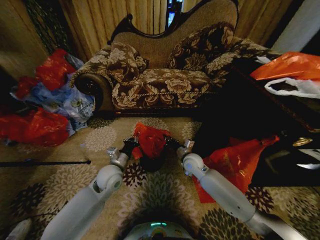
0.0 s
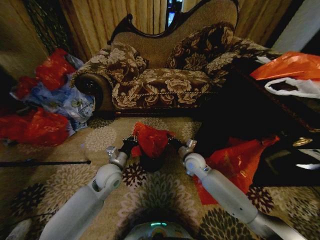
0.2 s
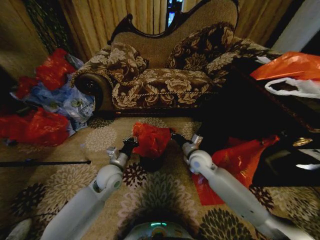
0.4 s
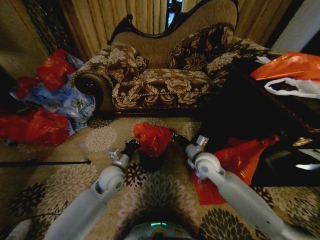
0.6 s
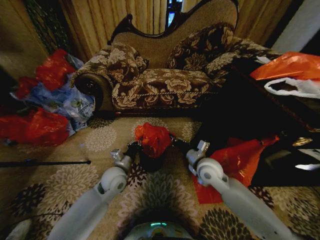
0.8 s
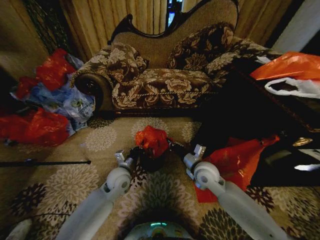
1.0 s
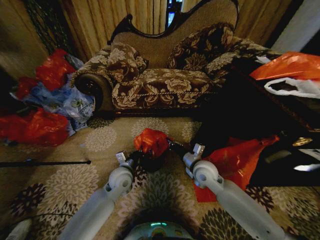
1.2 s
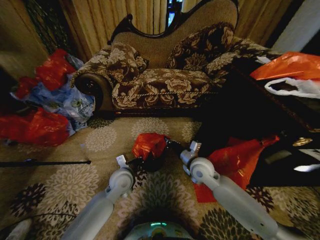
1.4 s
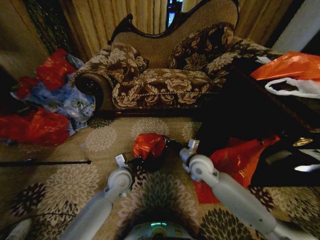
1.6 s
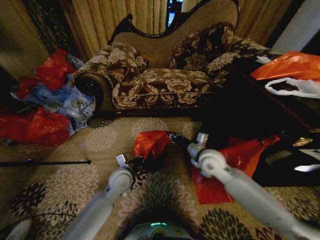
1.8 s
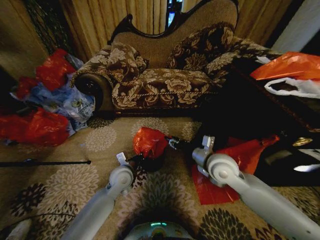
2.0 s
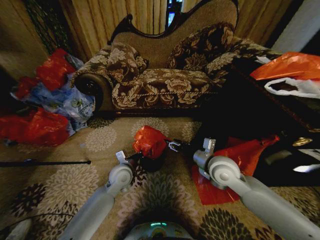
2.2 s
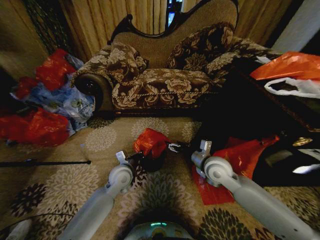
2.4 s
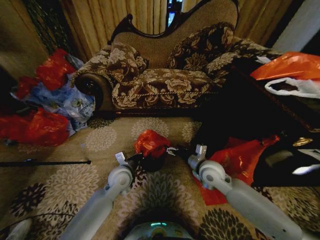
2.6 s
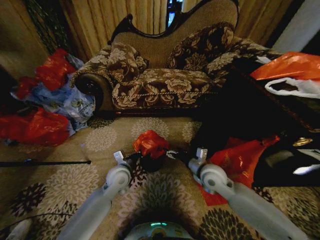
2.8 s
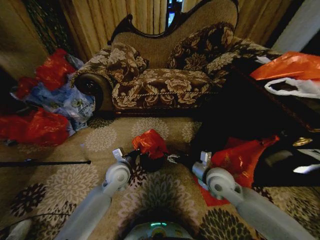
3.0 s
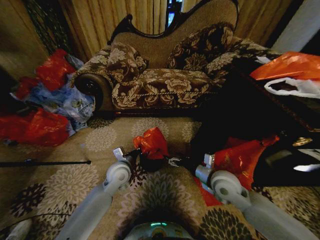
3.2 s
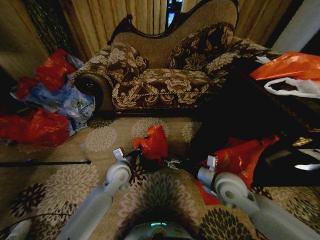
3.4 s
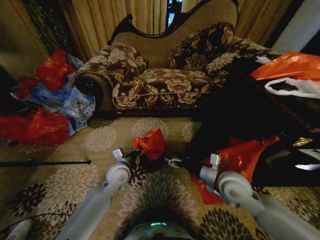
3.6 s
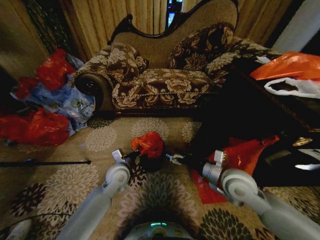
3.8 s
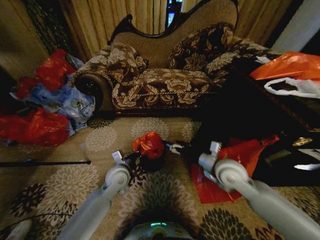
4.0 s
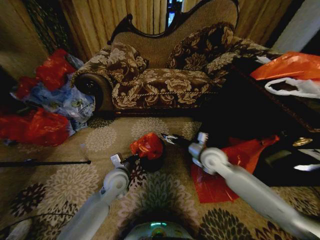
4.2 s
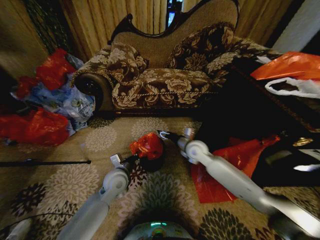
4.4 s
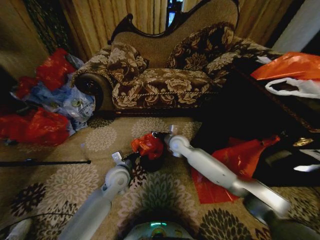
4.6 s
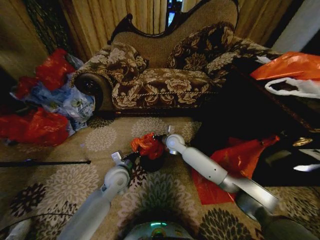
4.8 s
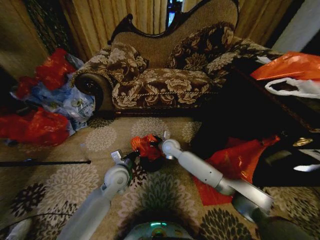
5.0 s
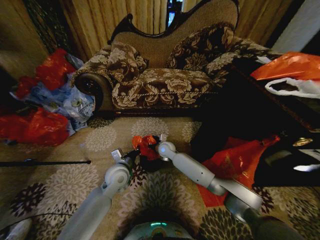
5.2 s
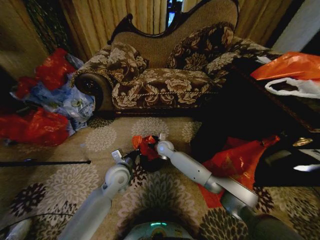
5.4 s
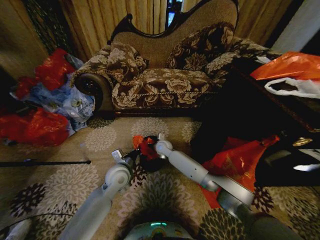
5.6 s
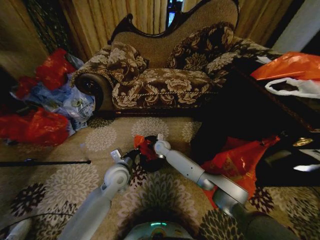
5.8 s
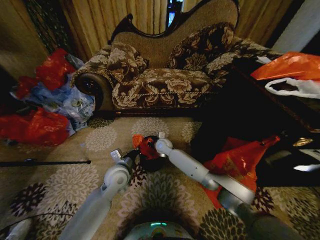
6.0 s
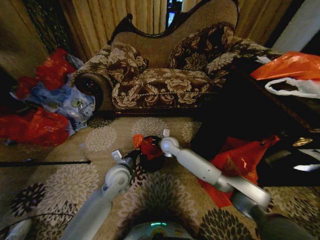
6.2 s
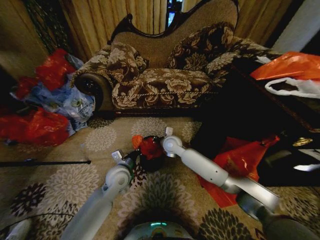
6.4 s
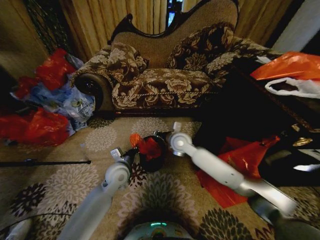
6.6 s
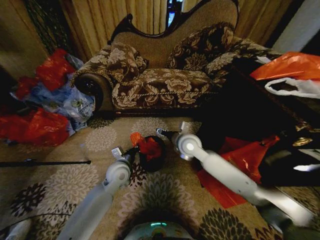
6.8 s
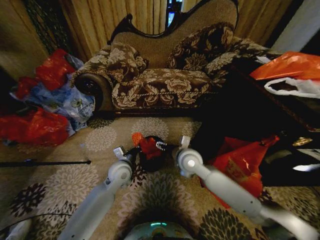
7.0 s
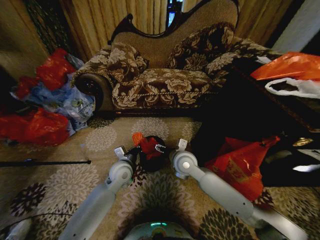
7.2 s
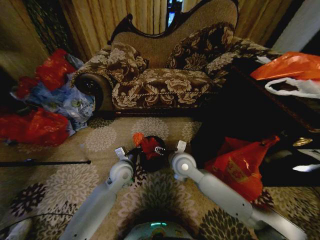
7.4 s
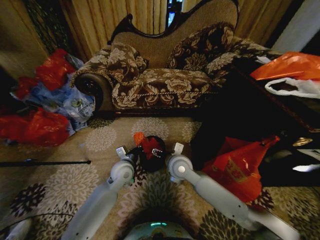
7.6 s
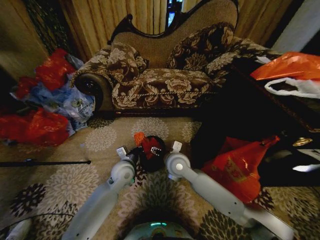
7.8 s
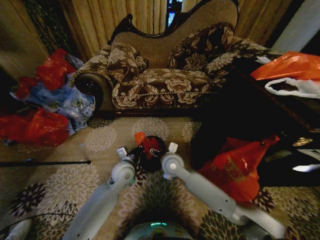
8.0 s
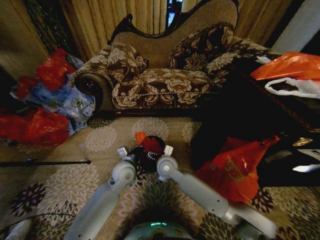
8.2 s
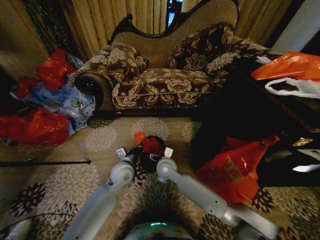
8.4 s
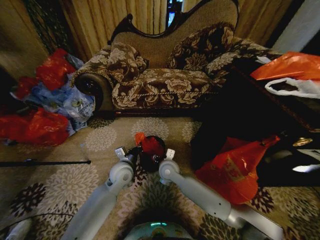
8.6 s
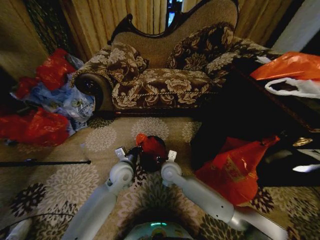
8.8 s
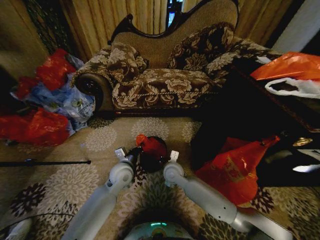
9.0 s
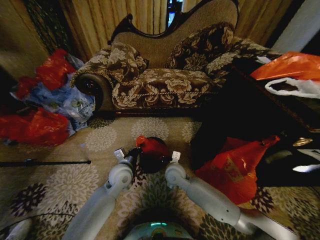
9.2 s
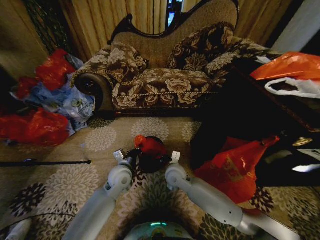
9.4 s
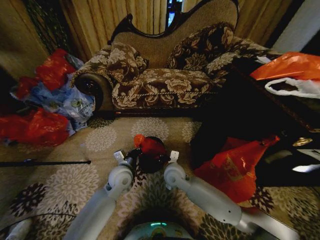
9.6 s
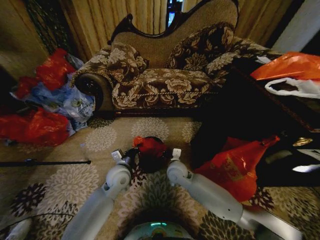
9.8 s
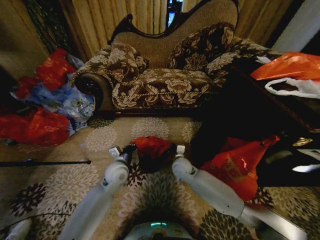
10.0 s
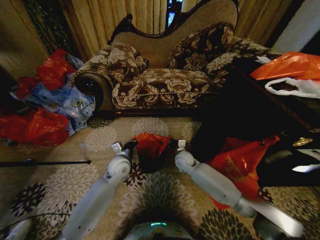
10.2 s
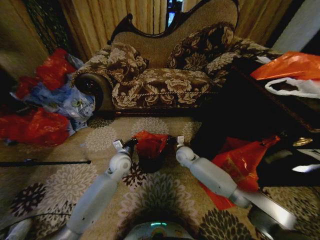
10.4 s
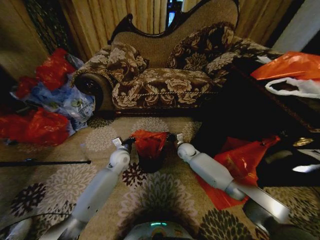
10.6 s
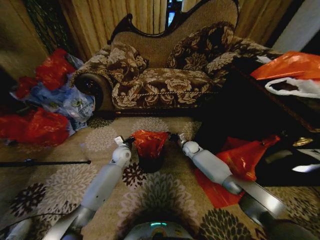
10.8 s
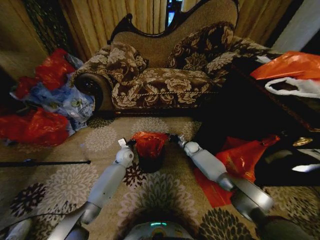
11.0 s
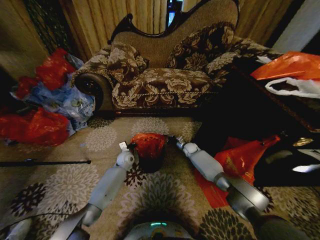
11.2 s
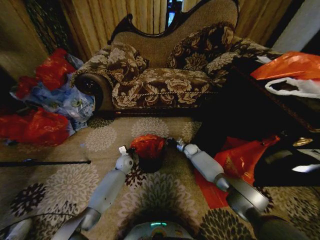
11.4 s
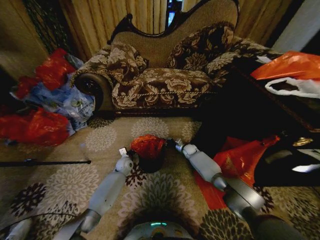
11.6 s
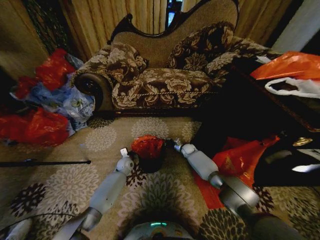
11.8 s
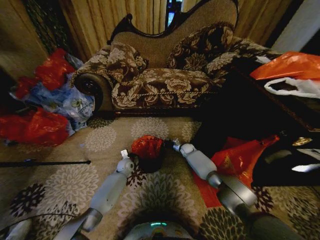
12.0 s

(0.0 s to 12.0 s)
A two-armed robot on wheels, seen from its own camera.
Task of the whole recording: Place a garbage bag over the trash bin.
0.0 s - 1.6 s: The right gripper goes about 10 cm upward and backward.
1.6 s - 3.0 s: The right gripper shifts some 10 cm to the right and backward, travels upward and back again, roughly 5 cm each way, and opens up.
3.0 s - 4.4 s: The right gripper goes roughly 15 cm forward and to the left.
4.4 s - 6.0 s: The right gripper goes about 15 cm to the left, downward and forward, and closes its fingers.
6.0 s - 7.6 s: The right gripper shifts some 20 cm backward and upward, and opens its fingers.
7.6 s - 9.0 s: The right gripper heads downward, covering roughly 10 cm, and closes up.
9.0 s - 10.4 s: The left gripper goes about 5 cm forward, while the right gripper shifts approximately 15 cm forward and to the right.
10.4 s - 12.0 s: The right gripper travels forward, downward and to the right by about 15 cm. The left gripper travels downward and forward by roughly 15 cm.

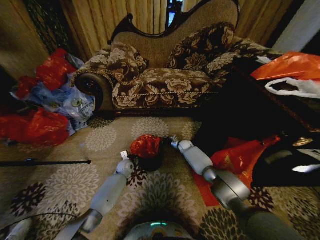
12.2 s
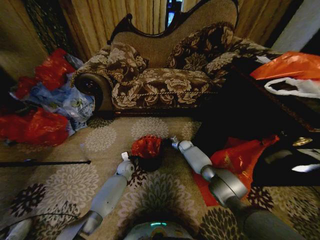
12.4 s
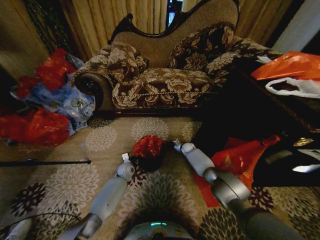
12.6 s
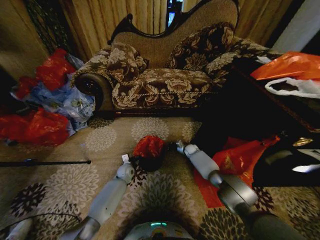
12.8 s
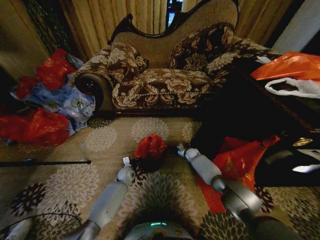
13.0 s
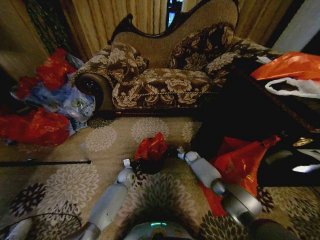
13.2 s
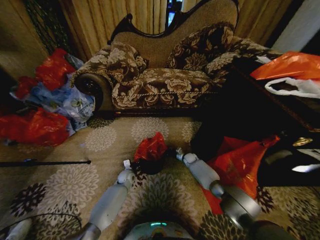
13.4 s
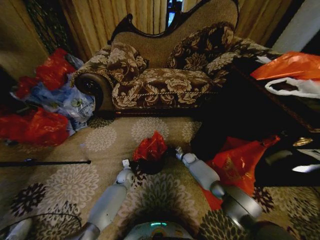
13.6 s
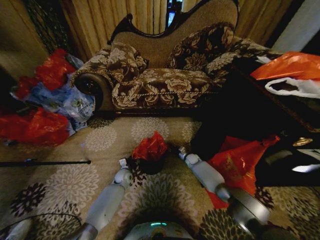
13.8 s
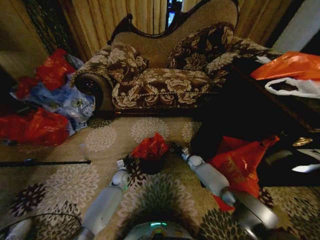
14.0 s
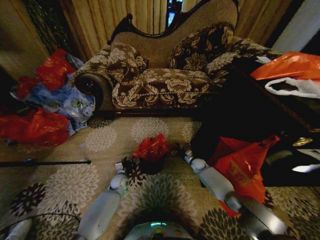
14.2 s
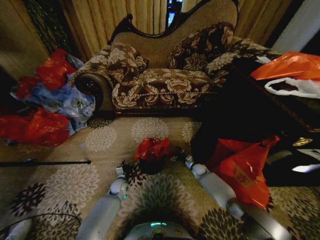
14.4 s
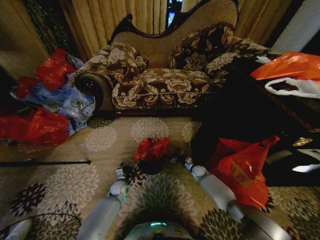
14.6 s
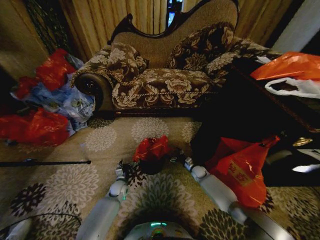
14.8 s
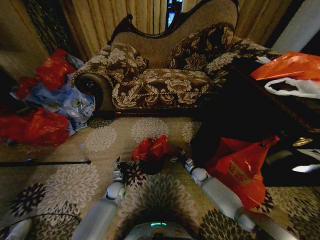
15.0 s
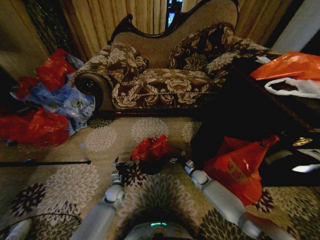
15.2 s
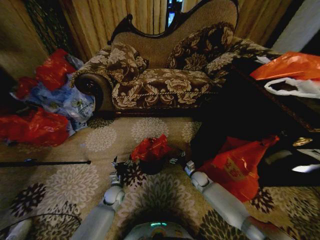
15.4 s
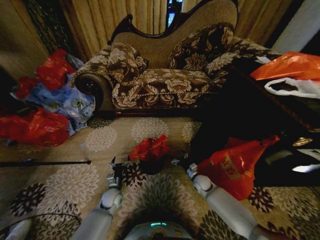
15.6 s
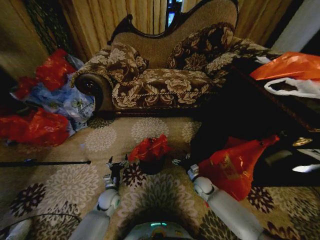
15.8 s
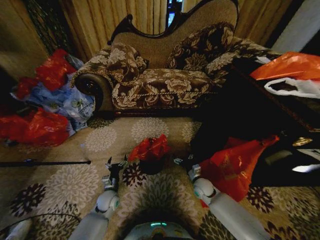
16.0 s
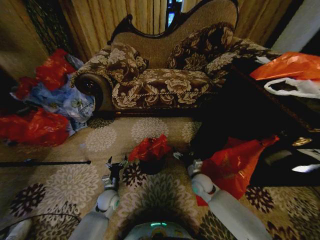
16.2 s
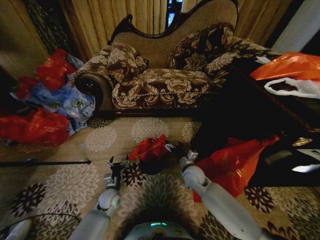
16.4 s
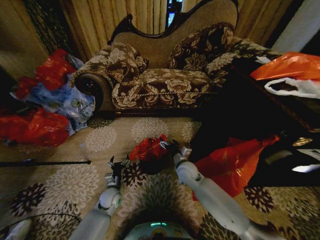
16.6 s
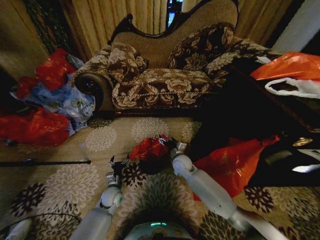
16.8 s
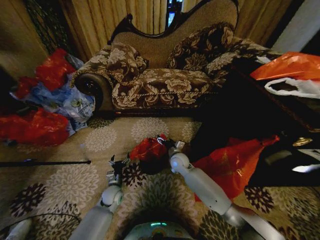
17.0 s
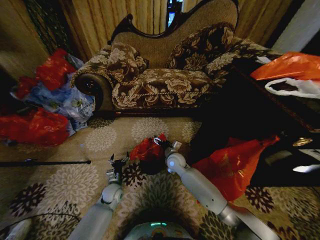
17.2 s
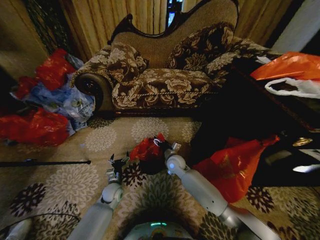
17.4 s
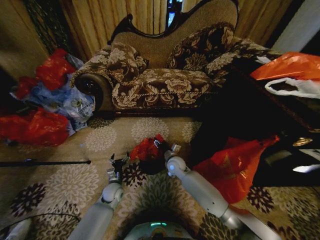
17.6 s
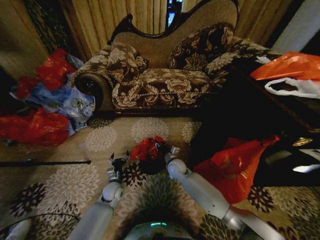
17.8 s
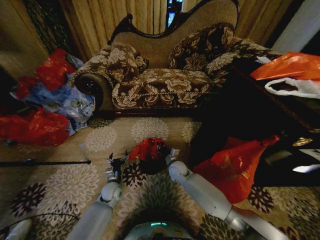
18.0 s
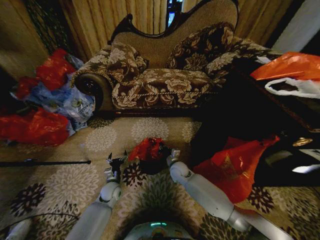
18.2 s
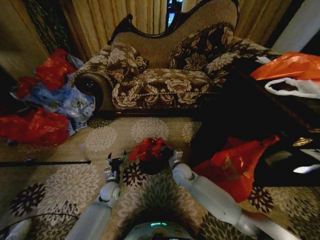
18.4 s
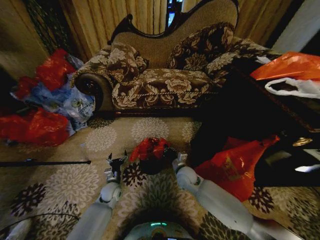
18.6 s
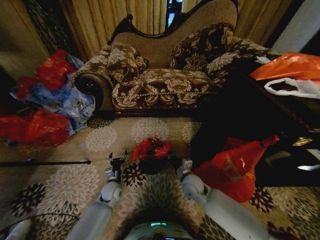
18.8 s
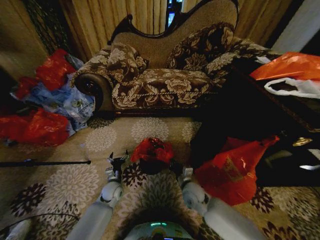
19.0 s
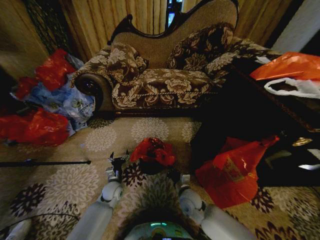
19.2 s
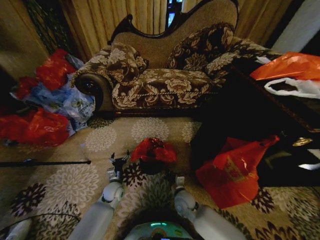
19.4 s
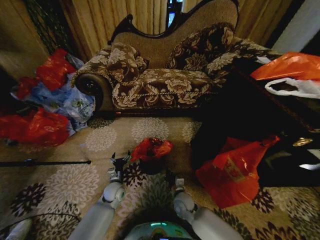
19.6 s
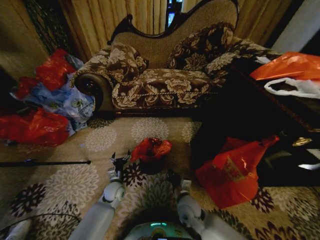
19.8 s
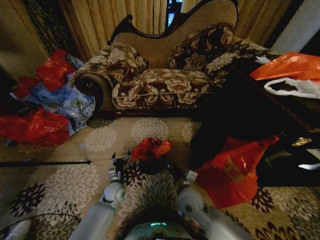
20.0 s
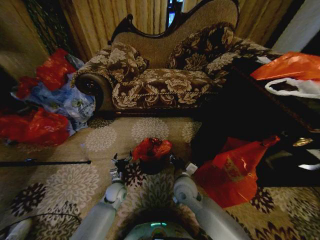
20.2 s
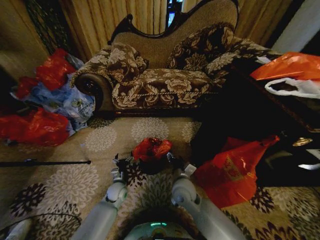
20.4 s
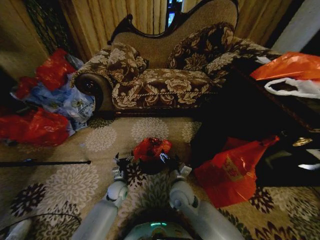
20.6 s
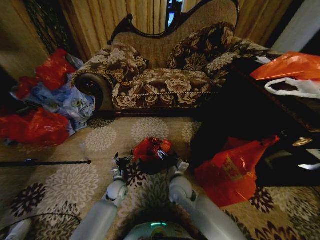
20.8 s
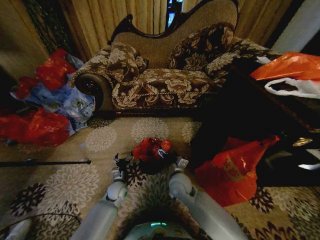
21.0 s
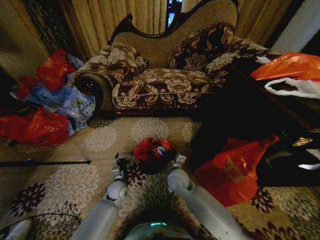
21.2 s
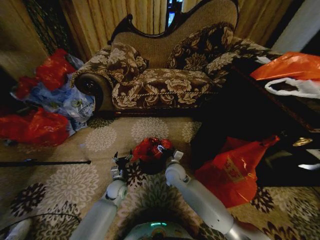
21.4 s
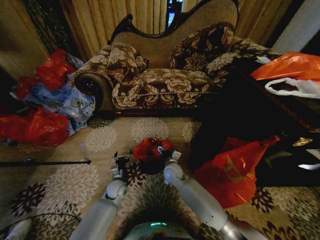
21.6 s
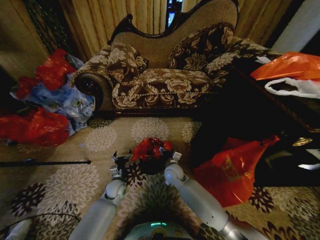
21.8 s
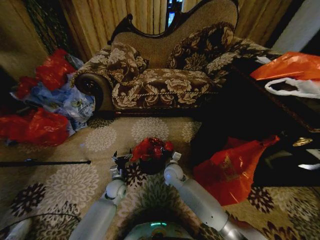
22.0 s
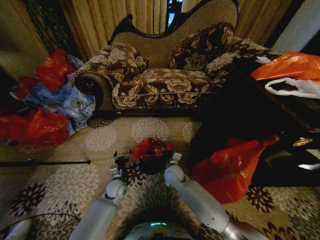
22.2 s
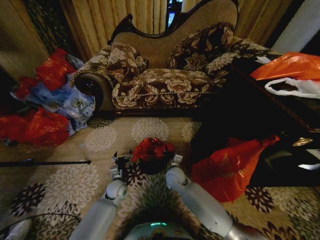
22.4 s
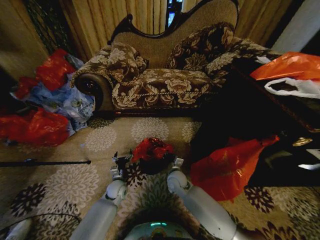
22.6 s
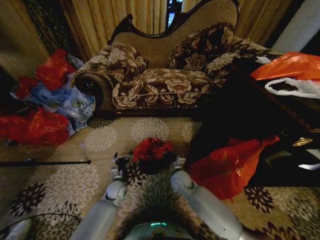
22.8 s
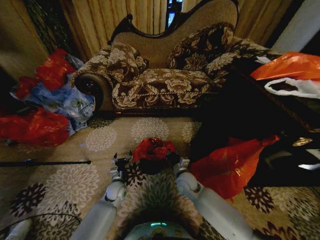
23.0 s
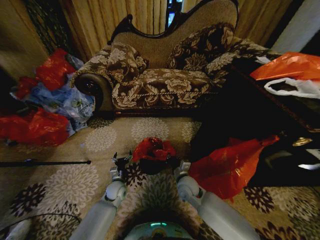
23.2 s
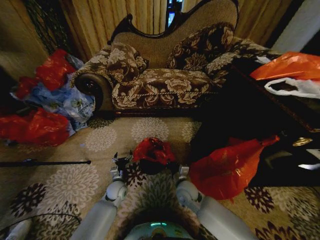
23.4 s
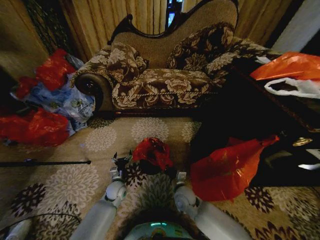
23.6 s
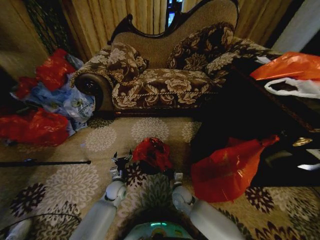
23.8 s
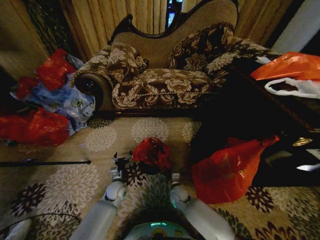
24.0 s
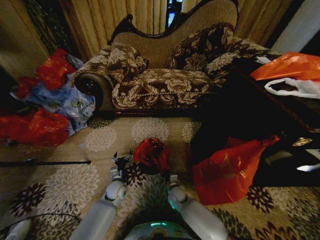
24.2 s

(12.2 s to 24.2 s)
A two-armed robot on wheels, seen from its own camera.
Task of the whole recording: Place a garbage bag over the trash bin.
12.2 s - 13.8 s: The right gripper goes some 10 cm backward and downward. The left gripper moves roughly 5 cm.
13.8 s - 15.2 s: The two grippers go roughly 10 cm backward. The right gripper opens its fingers; the left gripper opens its fingers.
15.2 s - 16.6 s: The left gripper shifts by approximately 5 cm, while the right gripper heads upward and to the left, covering approximately 20 cm.
16.6 s - 18.2 s: The right gripper shifts some 5 cm downward, and closes up.
18.2 s - 19.8 s: The right gripper travels backward by about 15 cm.
19.8 s - 21.2 s: The right gripper travels forward and upward by approximately 10 cm, and opens.
21.2 s - 22.6 s: The right gripper is displaced downward by roughly 5 cm, and closes its fingers.
22.6 s - 24.2 s: The right gripper moves downward, approximately 15 cm.
